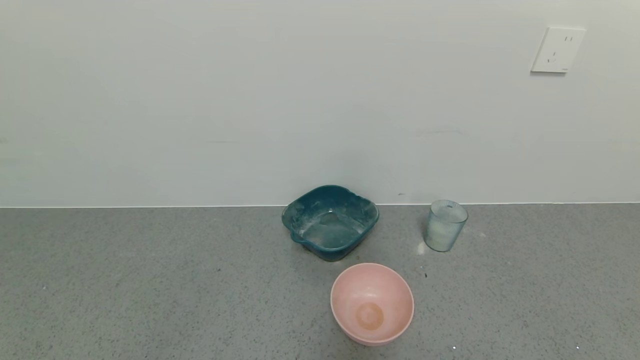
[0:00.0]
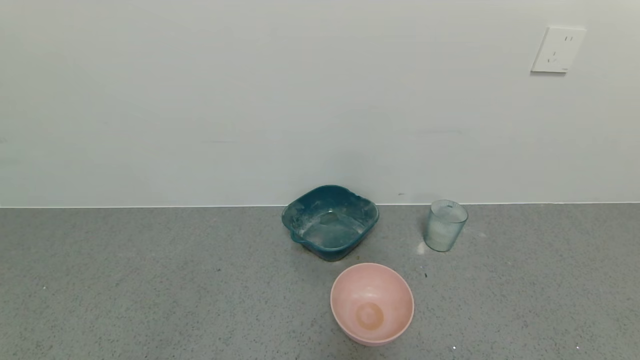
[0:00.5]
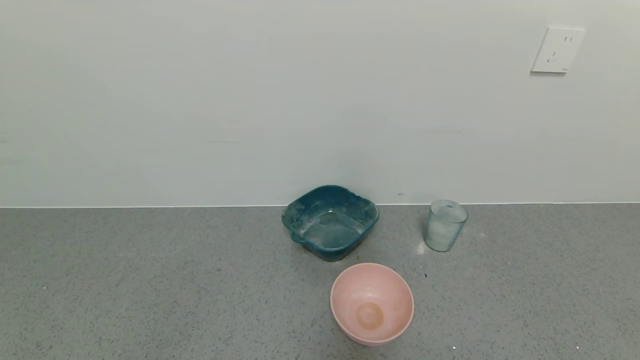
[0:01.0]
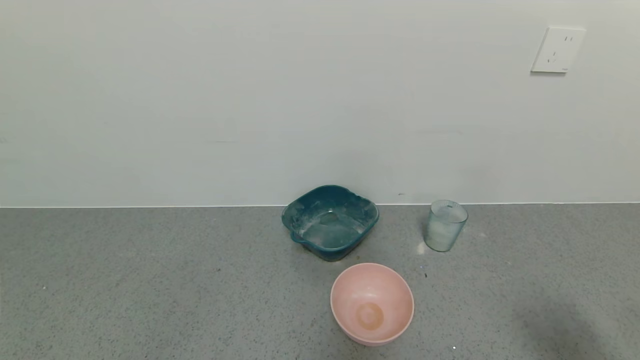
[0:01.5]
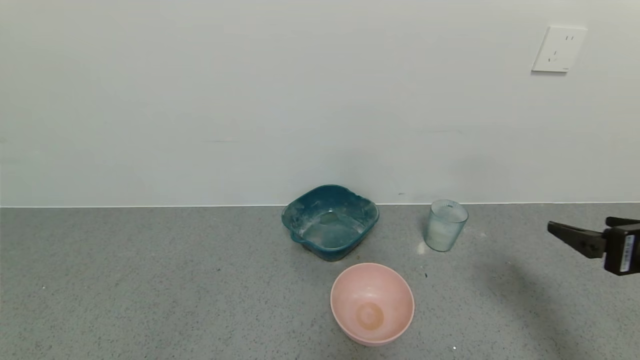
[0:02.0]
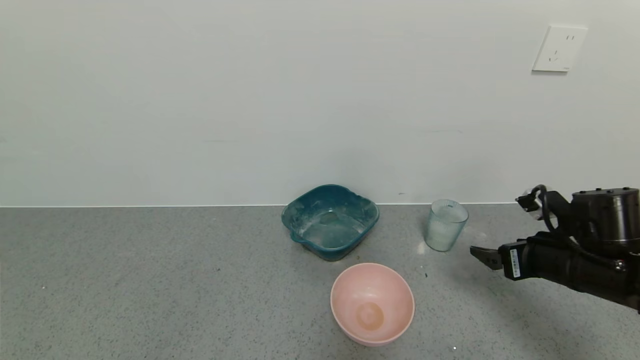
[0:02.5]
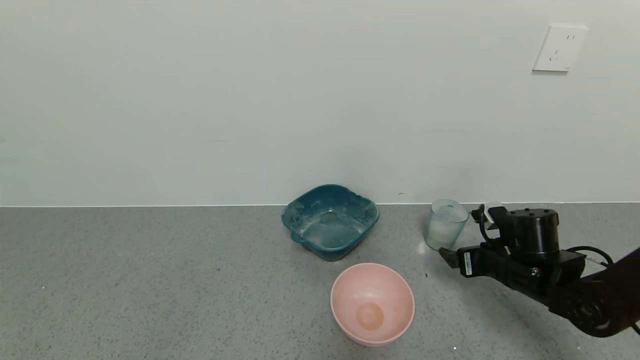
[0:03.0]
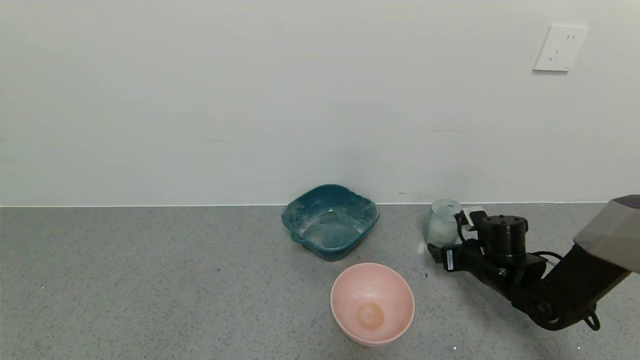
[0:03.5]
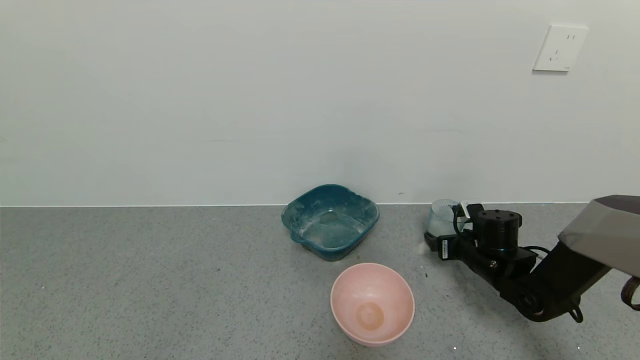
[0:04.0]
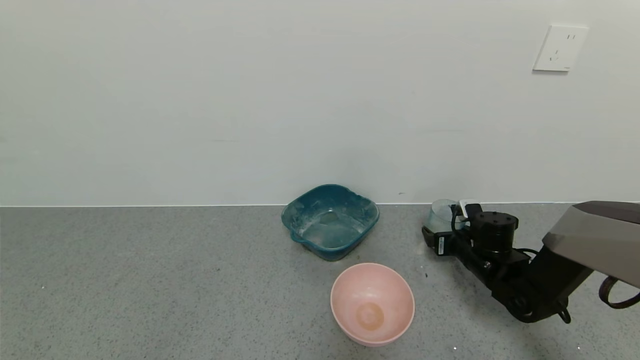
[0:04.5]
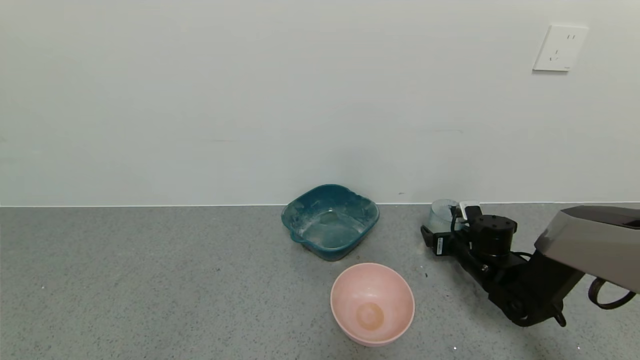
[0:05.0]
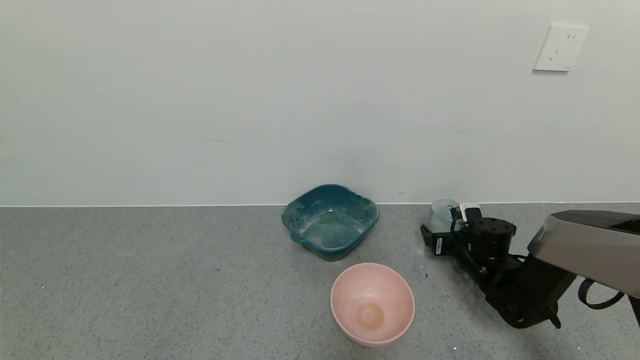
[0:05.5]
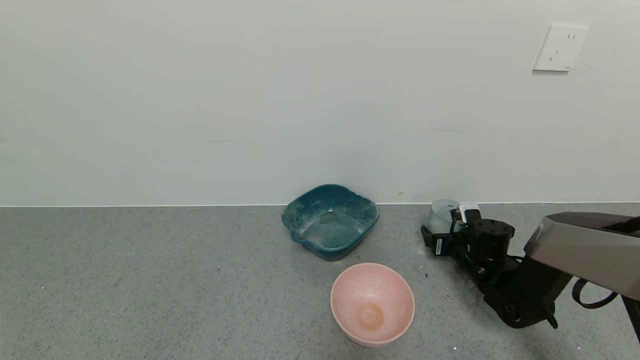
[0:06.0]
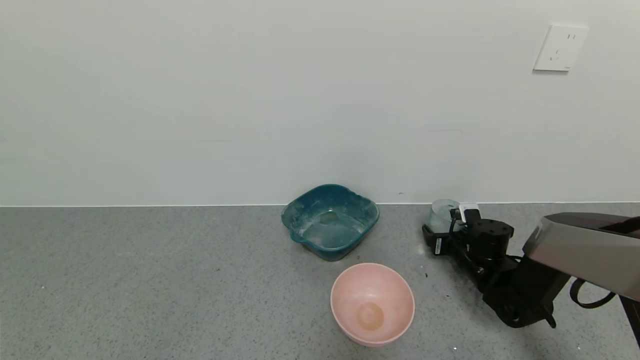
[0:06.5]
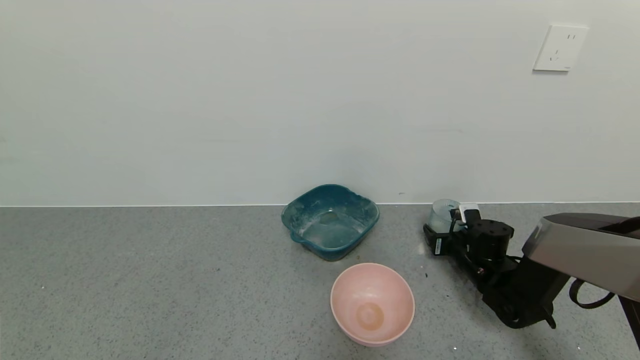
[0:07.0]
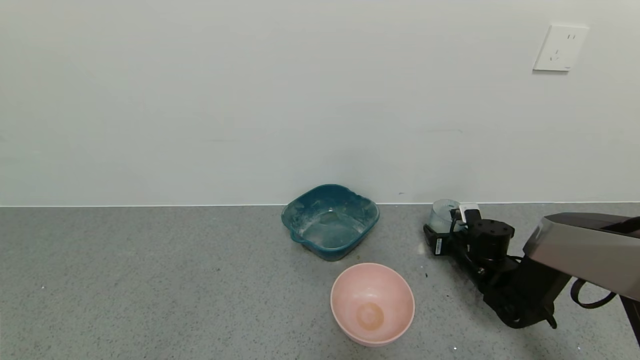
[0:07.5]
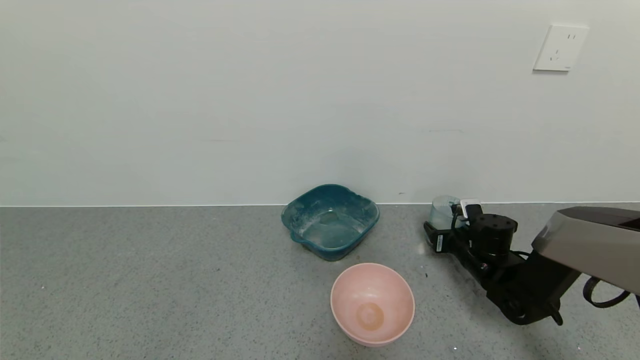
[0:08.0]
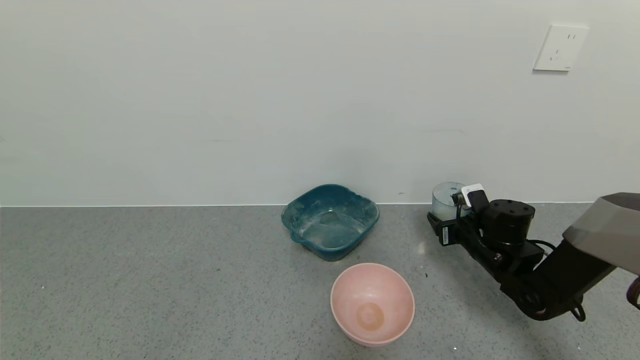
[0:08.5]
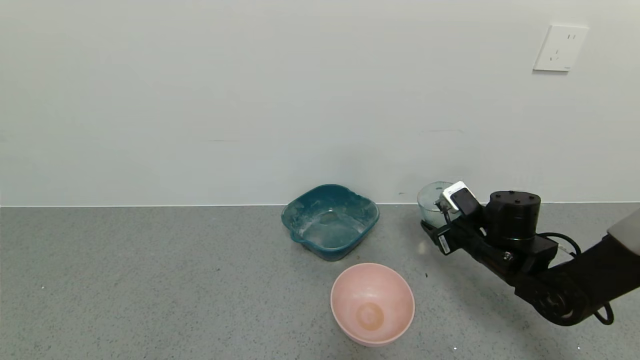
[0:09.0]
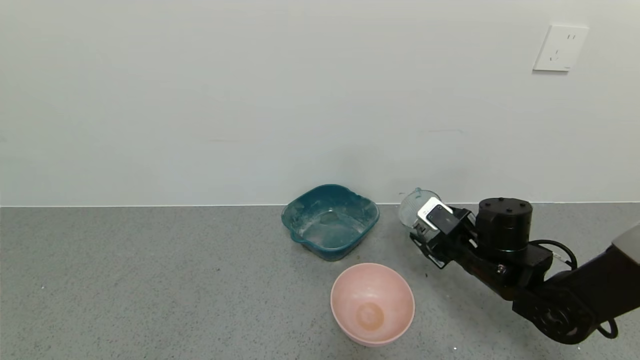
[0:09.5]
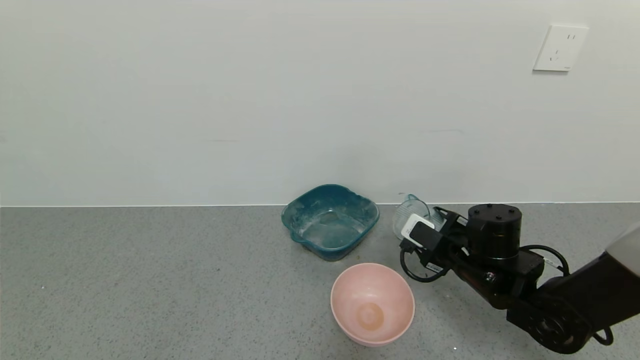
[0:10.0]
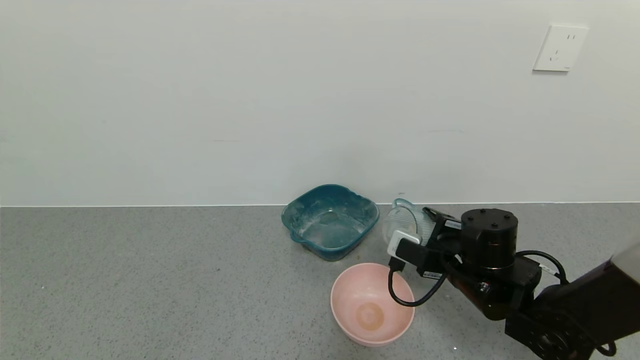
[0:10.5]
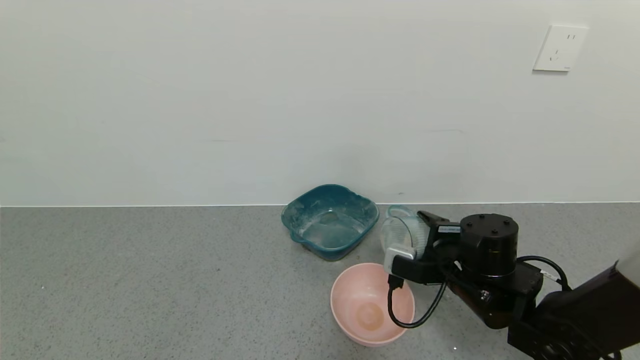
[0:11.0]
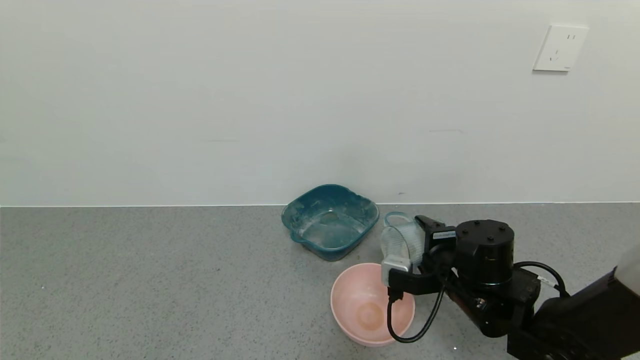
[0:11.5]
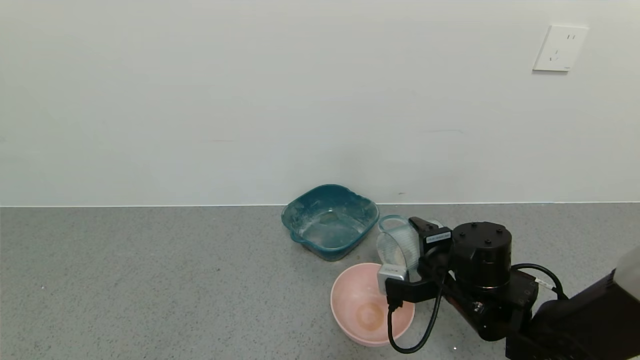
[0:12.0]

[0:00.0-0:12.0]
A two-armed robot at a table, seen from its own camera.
Task of the whole recording: use a gripper to pick up the cup and pour the powder into a bowl or tray.
Step, 0:00.0 to 0:06.5: Grasp the glass of powder with the right gripper.
0:00.0 to 0:02.0: The right gripper travels forward and upward by about 25 cm.
0:02.0 to 0:04.0: The right gripper travels forward, downward and to the left by approximately 25 cm.
0:04.0 to 0:06.0: There are only small adjustments of the grippers.
0:06.0 to 0:08.0: The right gripper closes its fingers.
0:08.0 to 0:10.0: The right gripper shifts approximately 15 cm backward, upward and to the left.
0:10.0 to 0:12.0: The right gripper changes place by about 5 cm.

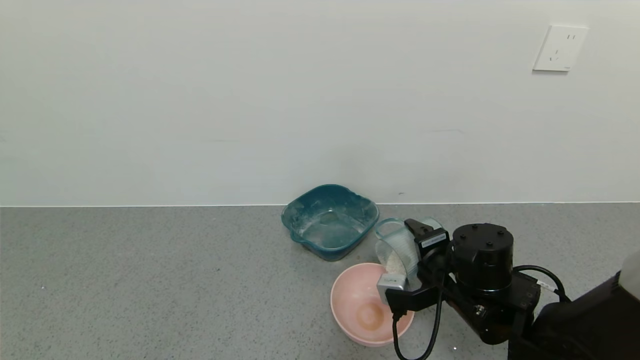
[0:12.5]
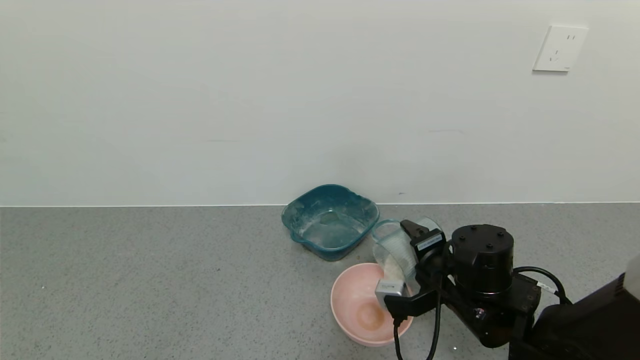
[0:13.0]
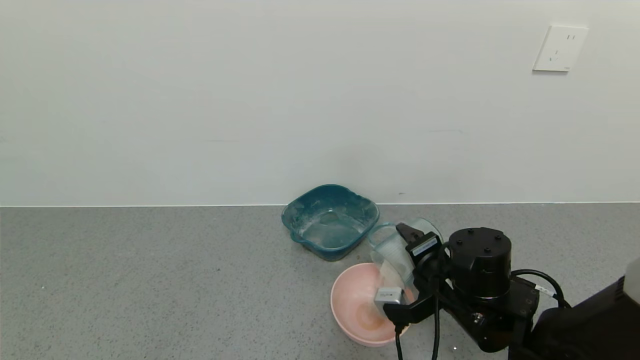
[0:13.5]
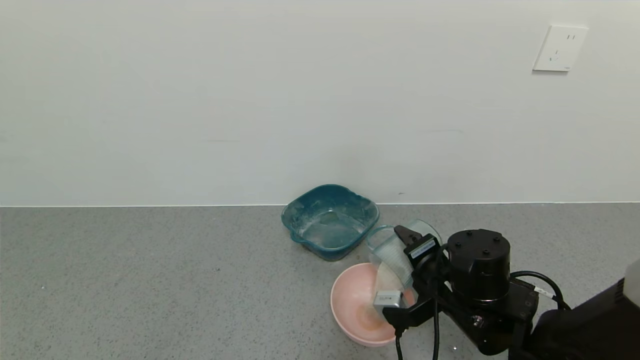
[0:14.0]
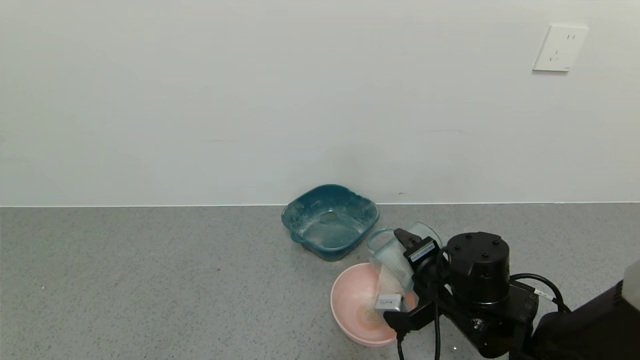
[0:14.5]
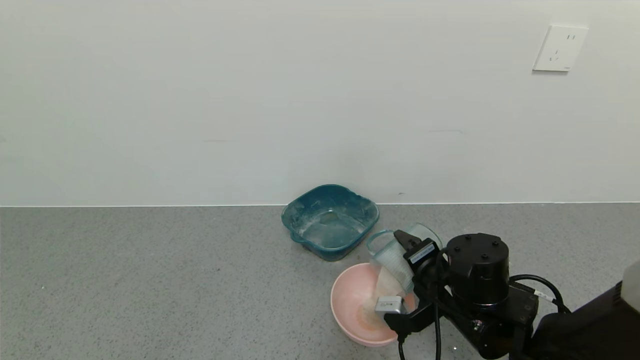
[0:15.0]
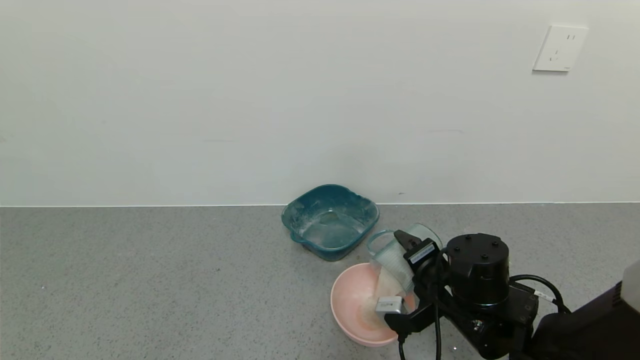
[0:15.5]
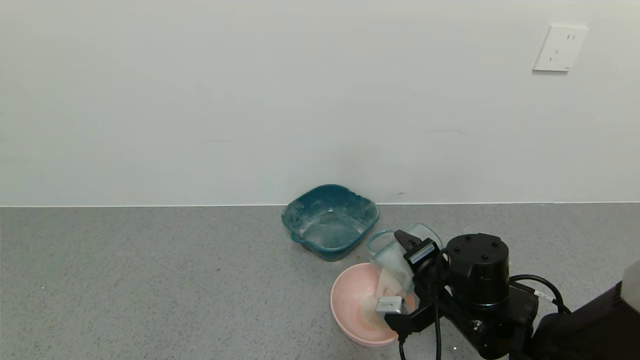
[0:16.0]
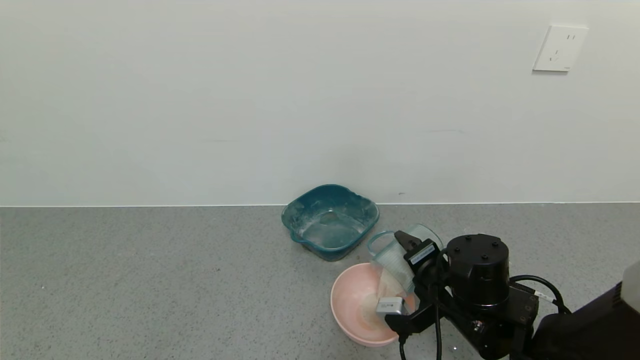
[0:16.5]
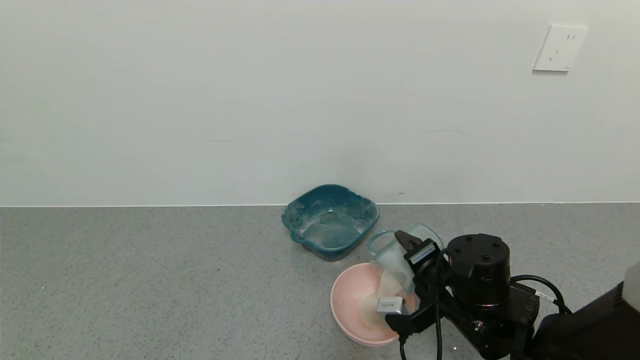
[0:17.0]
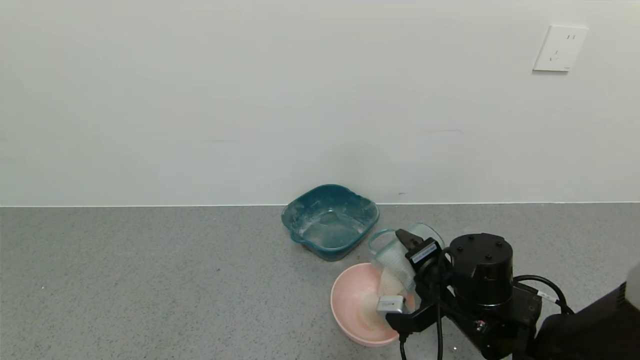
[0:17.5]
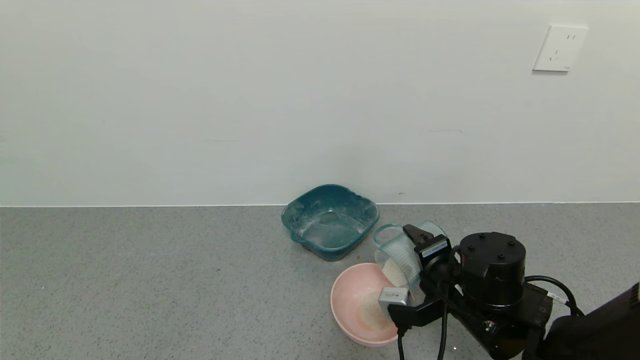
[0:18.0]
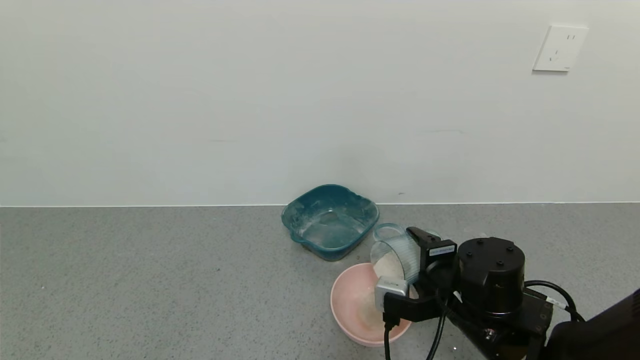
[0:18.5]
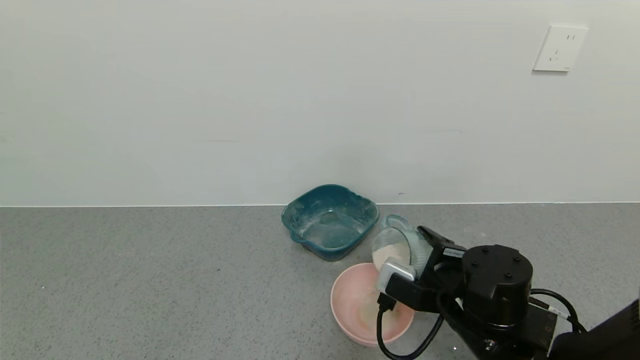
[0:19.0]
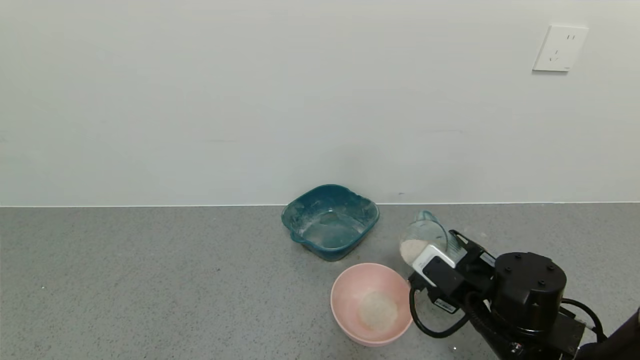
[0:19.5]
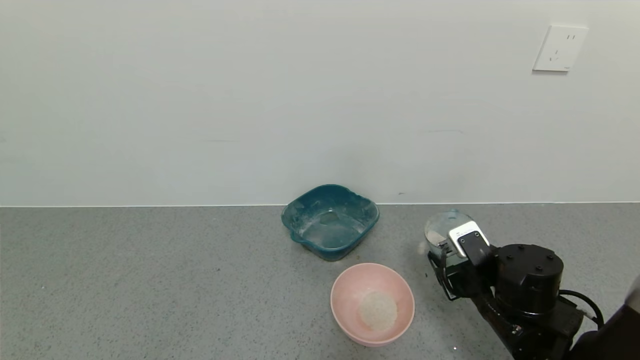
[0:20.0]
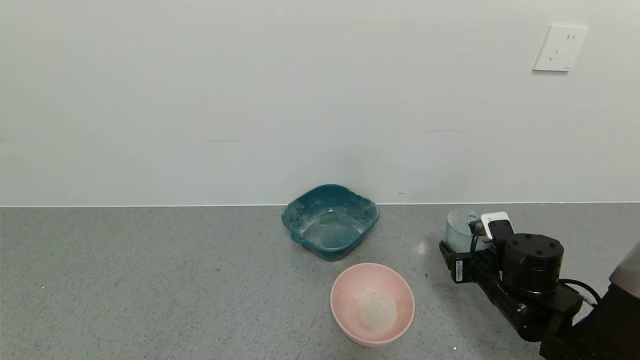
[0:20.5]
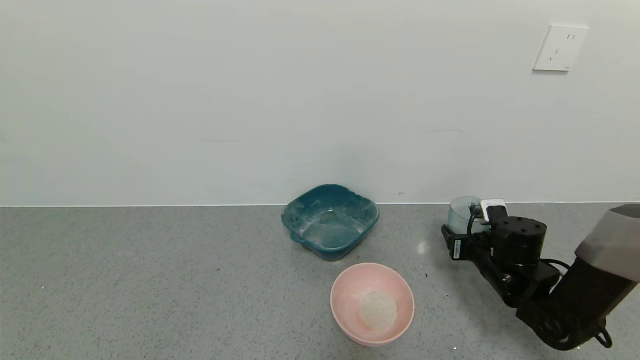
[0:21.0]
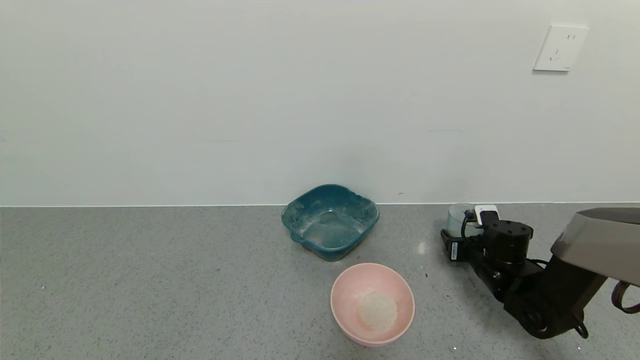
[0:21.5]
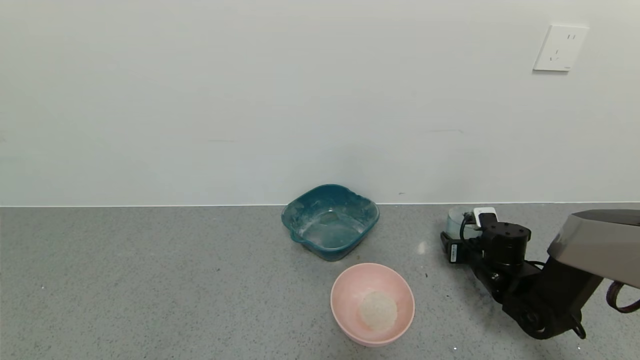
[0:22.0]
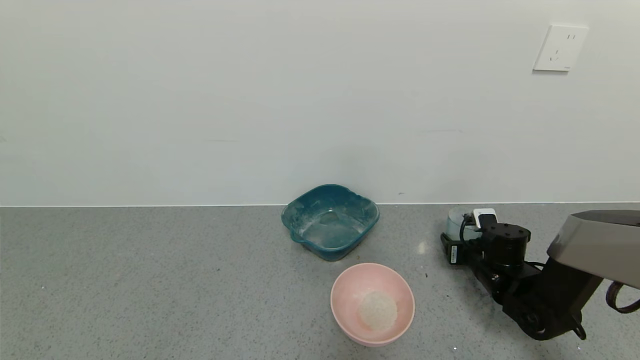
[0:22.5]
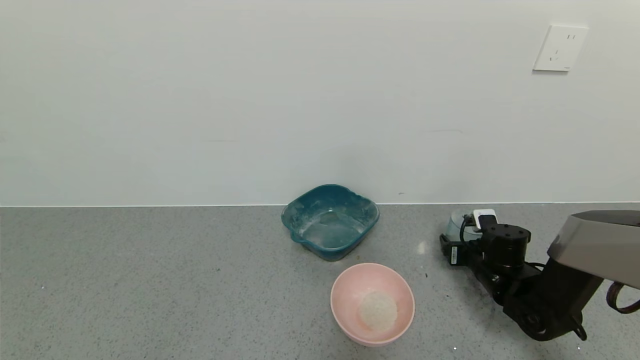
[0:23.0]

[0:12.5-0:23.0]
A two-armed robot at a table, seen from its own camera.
Task of the whole recording: use a gripper to pick up the cup and pour the powder into a bowl or tray.
Step, 0:12.5 to 0:17.5: Pour the powder into the pink bowl with the right gripper.
0:12.5 to 0:14.5: The grippers move only a little.
0:14.5 to 0:16.5: Neither gripper changes place.
0:19.0 to 0:21.0: The right gripper goes approximately 15 cm to the right and forward.
0:21.0 to 0:23.0: The right gripper opens up.
